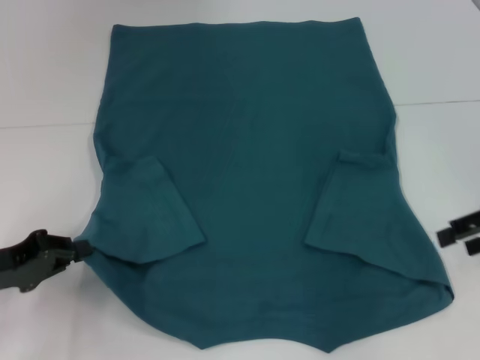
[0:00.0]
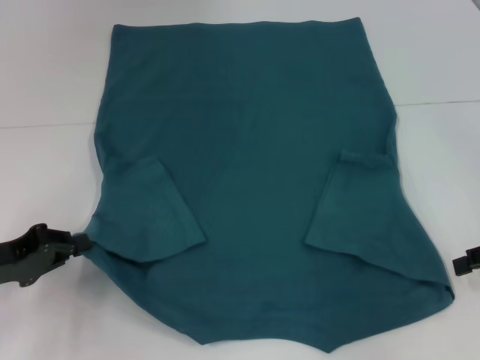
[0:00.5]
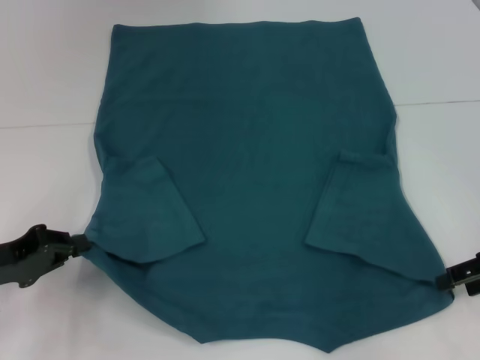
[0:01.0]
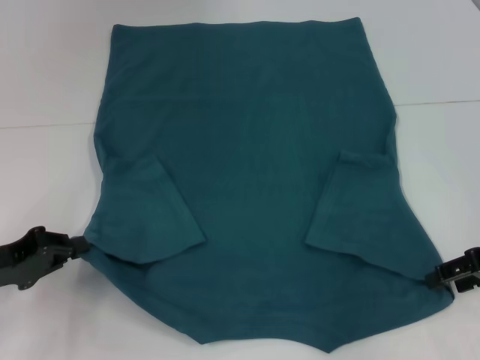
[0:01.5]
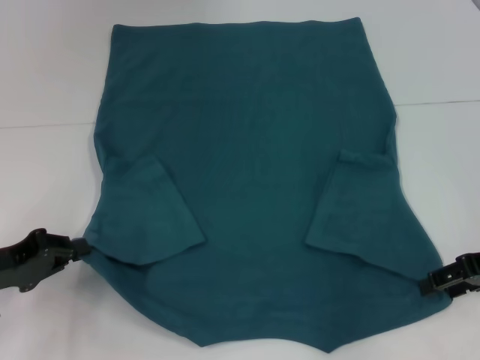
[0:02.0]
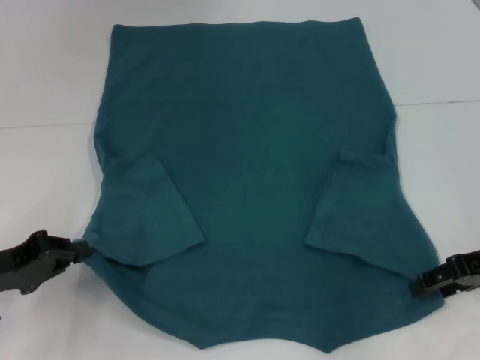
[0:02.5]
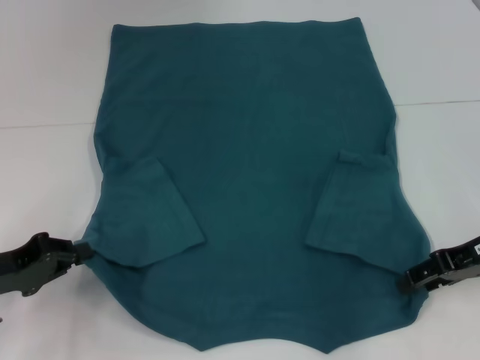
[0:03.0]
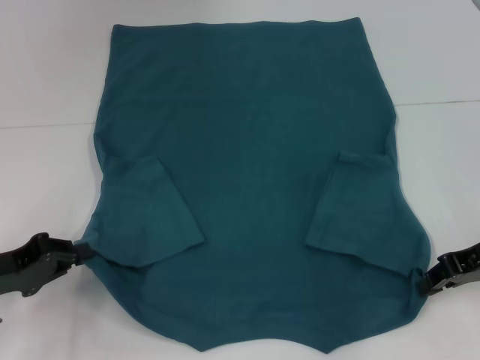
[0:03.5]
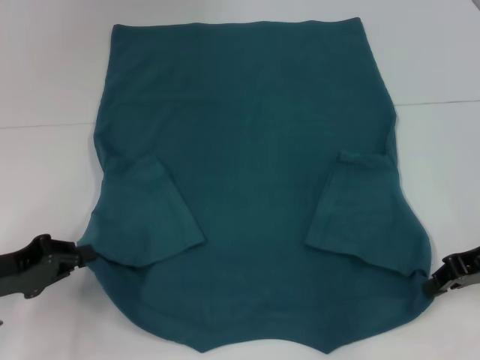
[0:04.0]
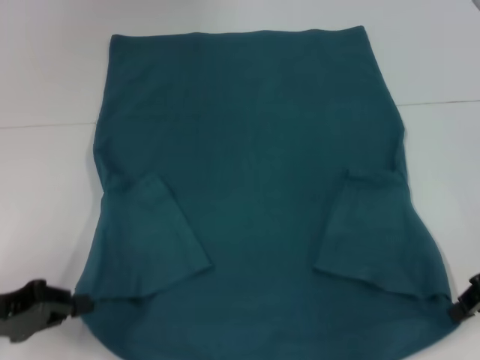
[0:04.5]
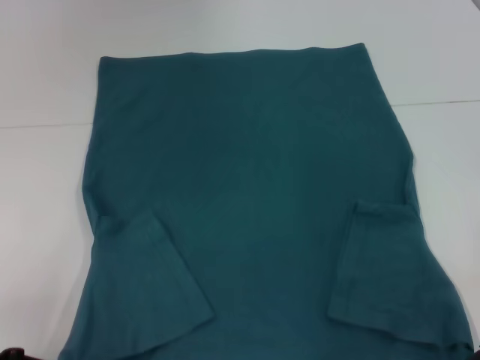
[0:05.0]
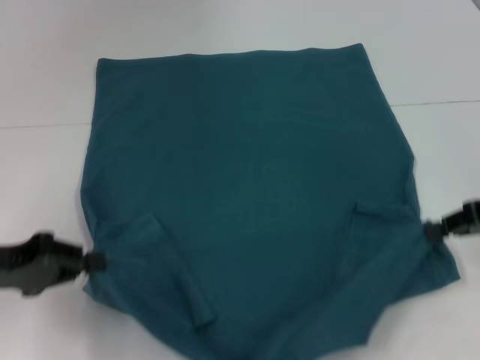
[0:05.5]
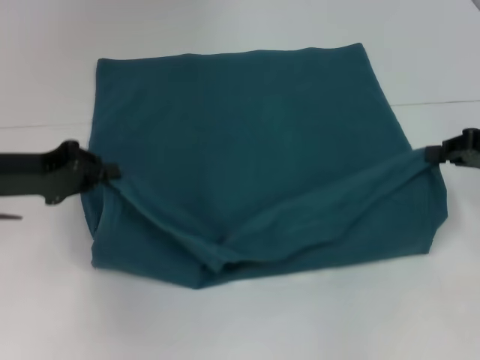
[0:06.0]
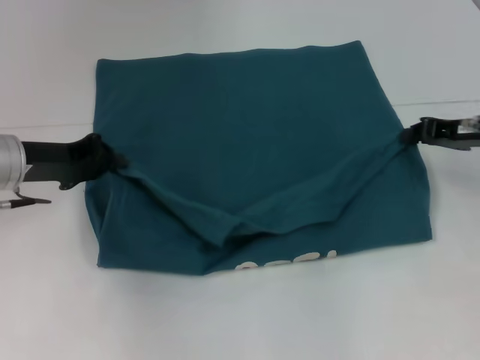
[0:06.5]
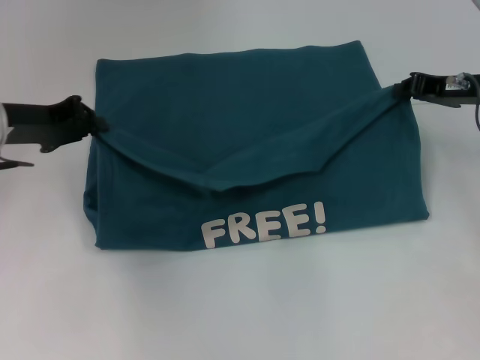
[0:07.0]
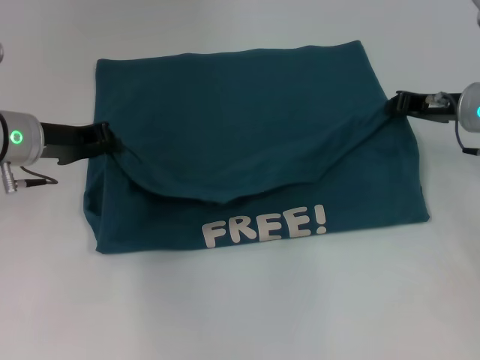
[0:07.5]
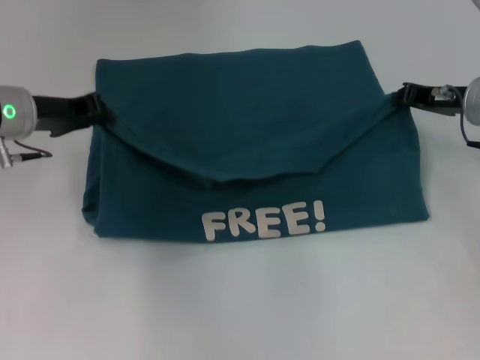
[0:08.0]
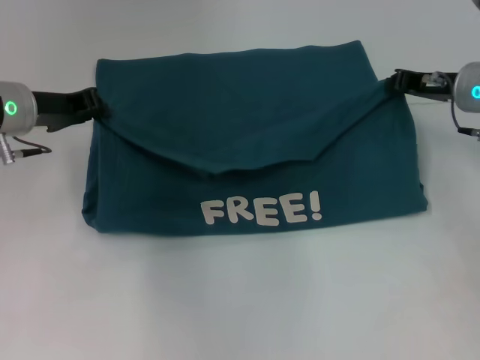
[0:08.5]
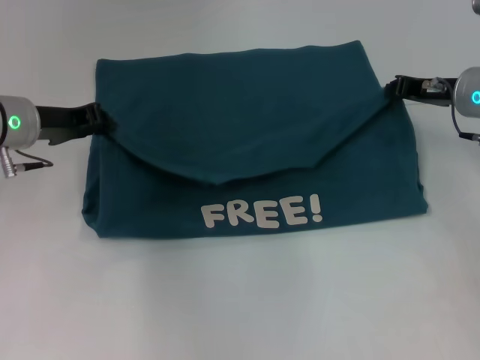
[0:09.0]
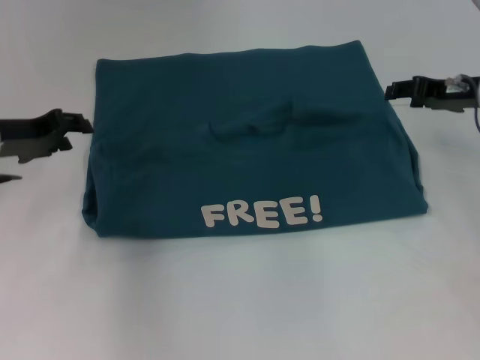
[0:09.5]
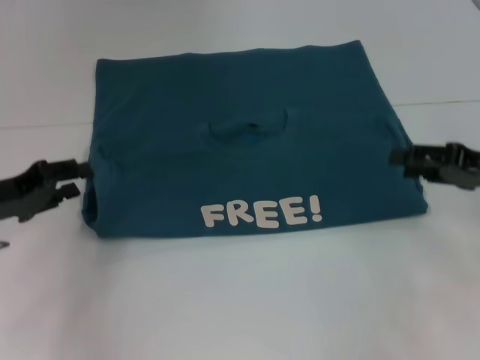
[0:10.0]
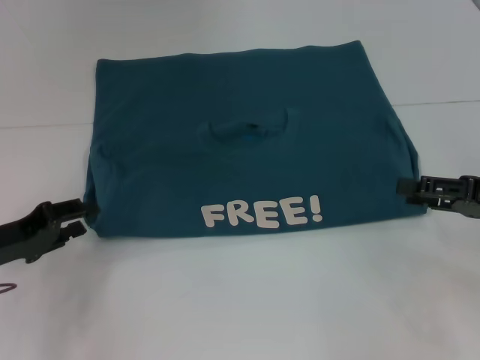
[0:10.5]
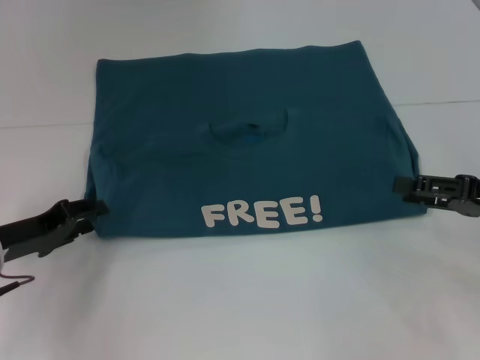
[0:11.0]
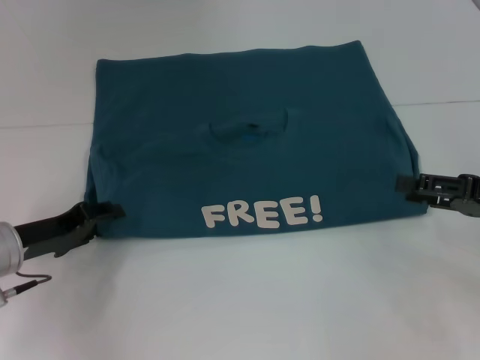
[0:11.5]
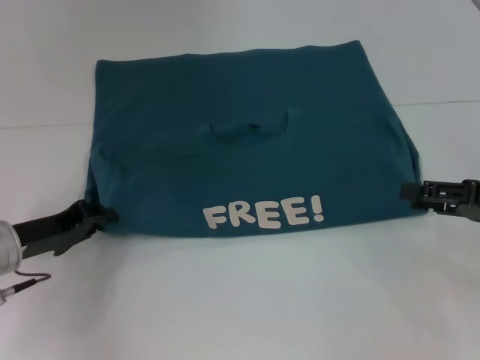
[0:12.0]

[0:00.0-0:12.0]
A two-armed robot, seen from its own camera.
Step, 0.0 to 3.5 s: Grab the bottom right corner with your right hand.
Step, 4.0 to 9.0 s: Fold the clothes to the left.
Step, 4.0 to 9.0 s: Fold the clothes to the right.
0.0 to 2.0 s: The right gripper changes place by about 5 cm.
2.0 to 4.0 s: The right gripper closes.
4.0 to 6.0 s: The right gripper shifts by about 5 cm. Meanwhile the left gripper is displaced forward and upward by about 10 cm.
6.0 to 8.0 s: The left gripper travels forward by about 5 cm, while the right gripper moves forward and to the left, roughly 10 cm.
8.0 to 10.0 s: The left gripper moves backward and to the left, approximately 10 cm, and opens up. Meanwhile the right gripper is displaced backward by some 10 cm, and opens up.
10.0 to 12.0 s: The left gripper moves downward, roughly 5 cm.

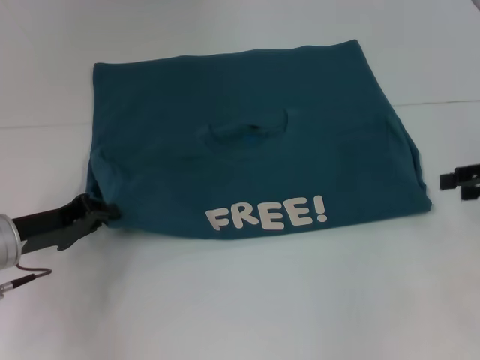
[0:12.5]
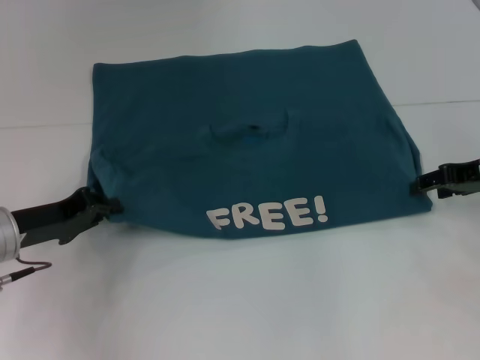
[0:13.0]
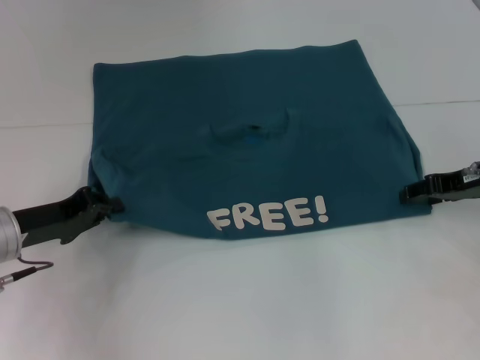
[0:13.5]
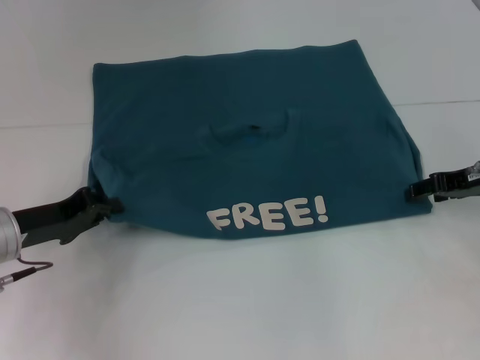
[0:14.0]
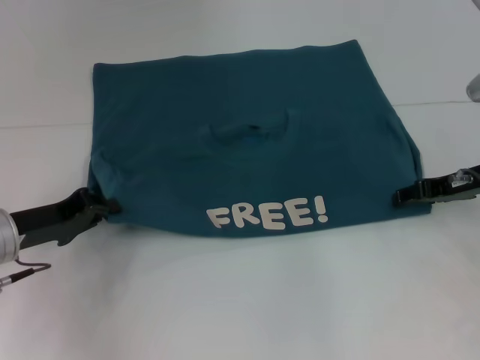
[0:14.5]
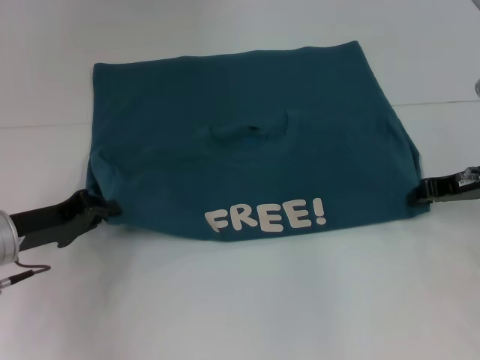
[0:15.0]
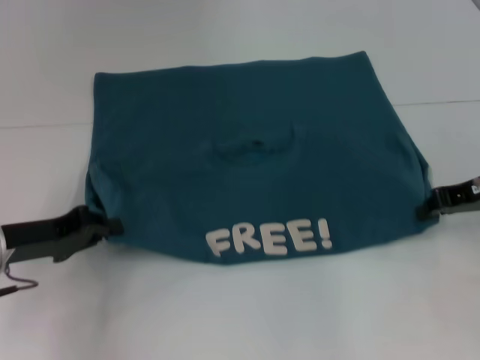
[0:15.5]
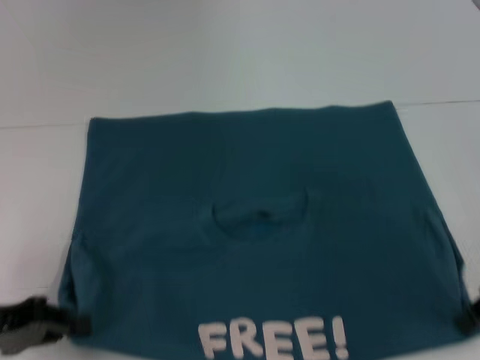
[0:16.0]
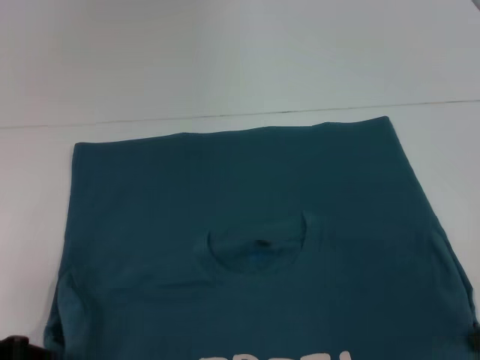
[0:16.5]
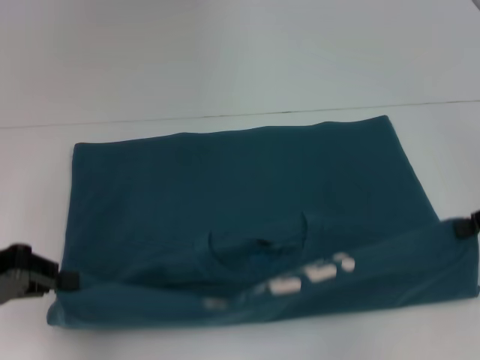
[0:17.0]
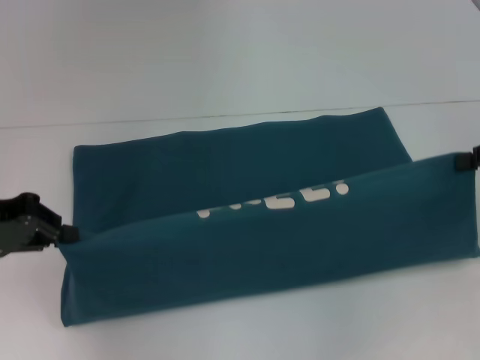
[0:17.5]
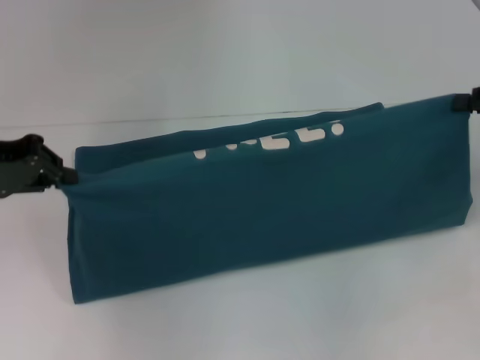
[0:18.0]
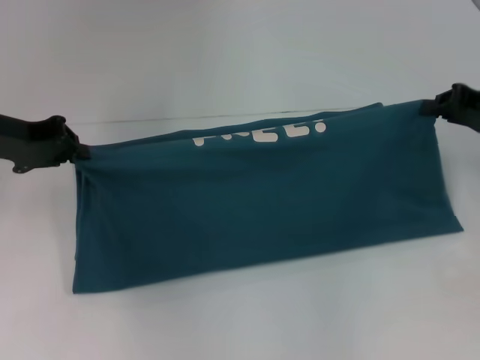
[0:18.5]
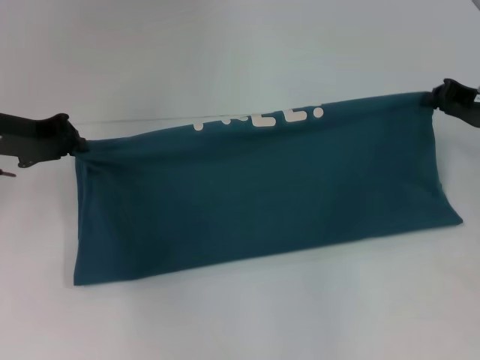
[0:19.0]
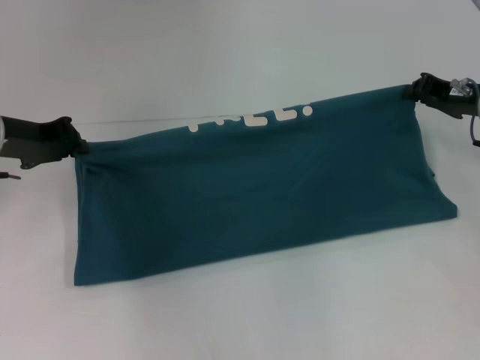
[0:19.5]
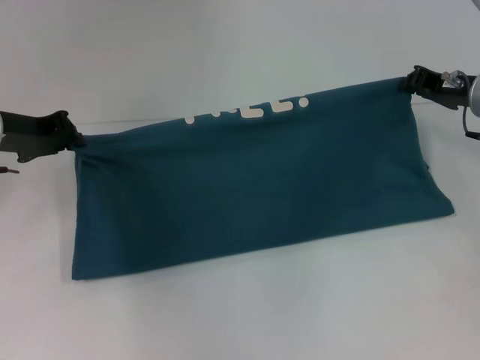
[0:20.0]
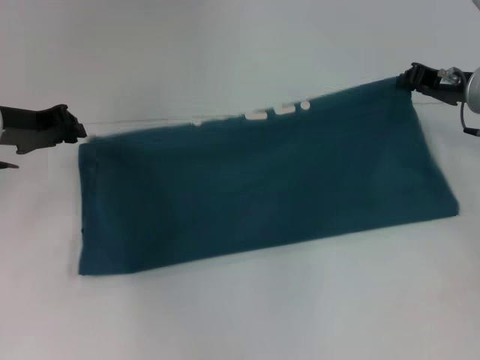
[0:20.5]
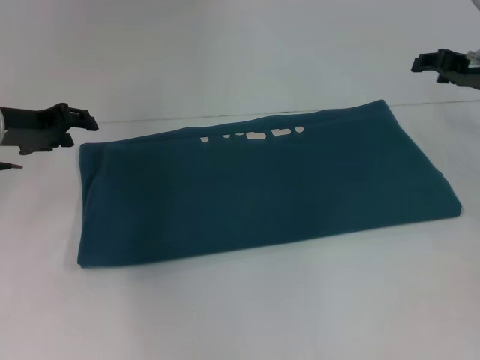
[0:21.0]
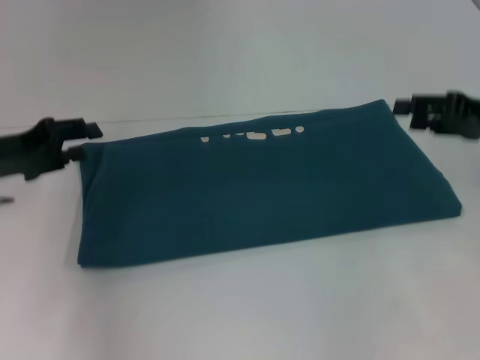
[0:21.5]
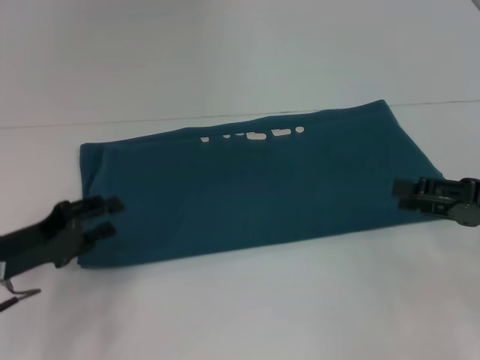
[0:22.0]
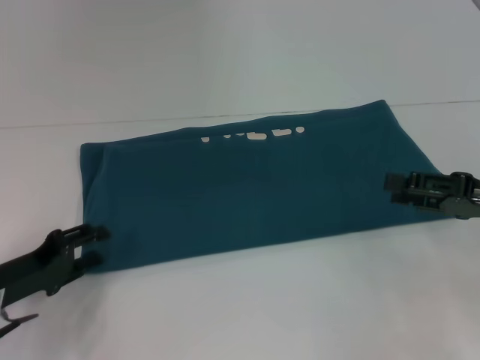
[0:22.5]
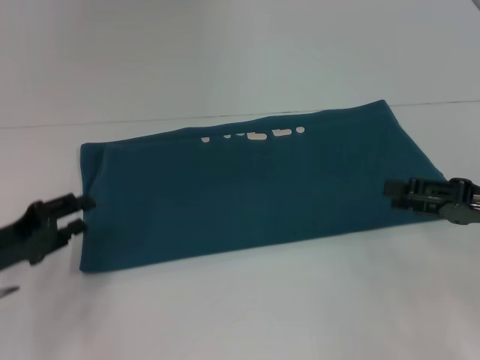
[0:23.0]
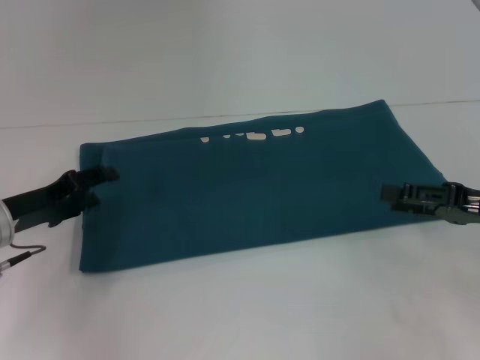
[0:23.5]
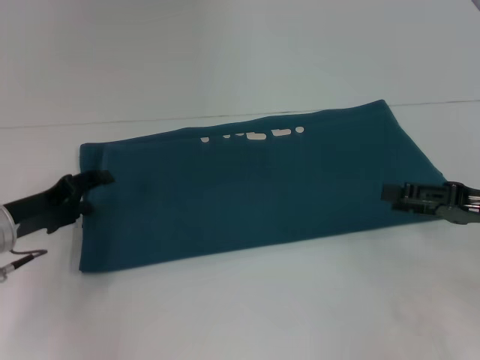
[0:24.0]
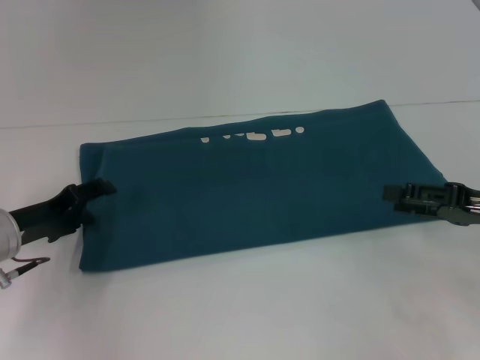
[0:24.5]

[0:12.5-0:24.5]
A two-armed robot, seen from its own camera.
Step, 12.5 to 16.0 s: Pull the clothes with your left hand.
Step, 12.5 to 16.0 s: Pull the clothes with your right hand.
Step, 16.5 to 20.5 s: Fold the clothes to the right.
12.5 to 14.5 s: The right gripper shifts approximately 10 cm to the left.
14.5 to 16.5 s: The left gripper goes roughly 10 cm backward and to the left, while the right gripper moves backward, some 10 cm, and closes up.
16.5 to 18.5 s: The left gripper moves forward and upward, approximately 20 cm. Meanwhile the right gripper moves forward, approximately 10 cm.
18.5 to 20.5 s: The right gripper travels forward by approximately 5 cm.
20.5 to 22.5 s: The left gripper heads backward and downward, covering roughly 20 cm, and opens. The right gripper is displaced backward by roughly 15 cm, and opens up.
22.5 to 24.5 s: The left gripper is displaced forward by roughly 5 cm.

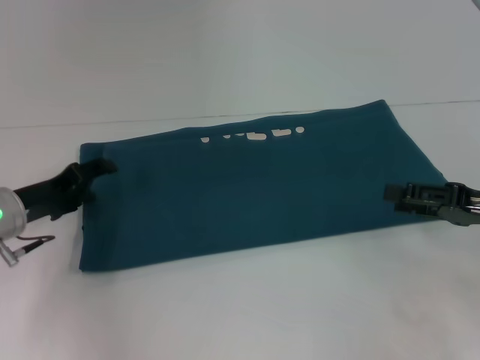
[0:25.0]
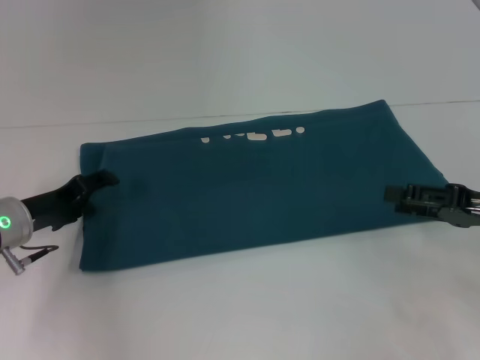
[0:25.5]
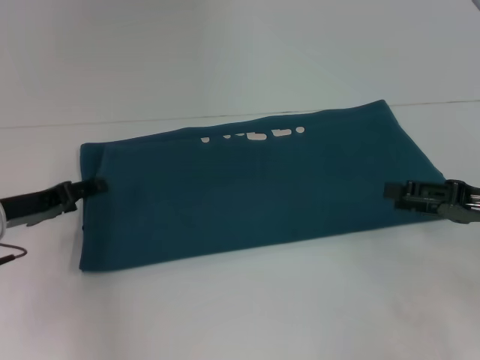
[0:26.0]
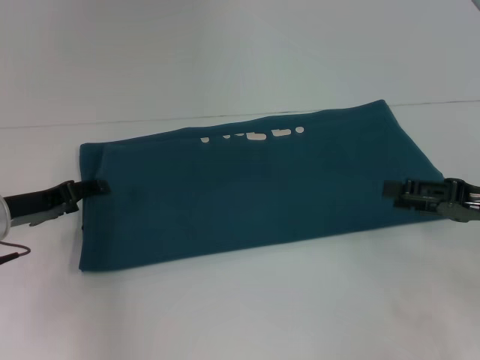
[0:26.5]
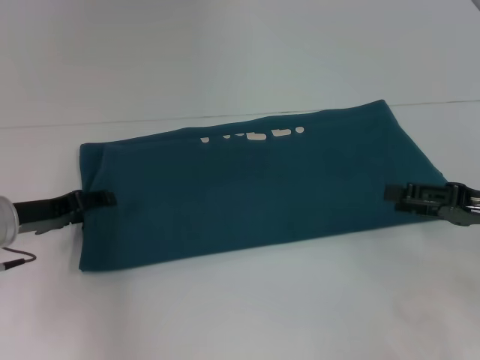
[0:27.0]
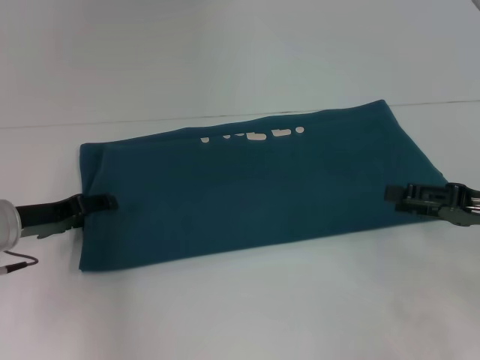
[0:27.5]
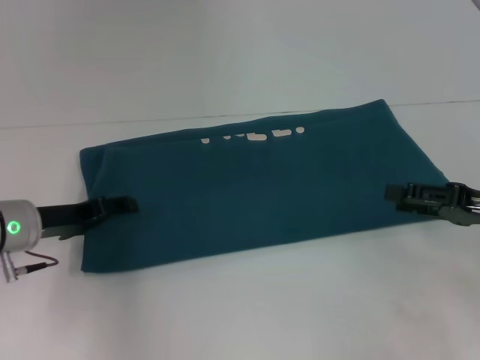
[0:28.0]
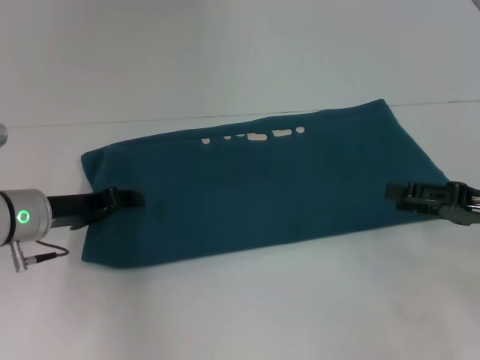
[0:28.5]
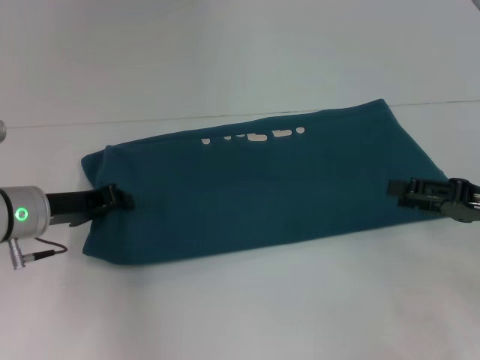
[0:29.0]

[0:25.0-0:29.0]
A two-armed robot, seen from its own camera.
25.0 to 27.0 s: There are only small adjustments of the grippers.
27.0 to 29.0 s: The left gripper closes up.
